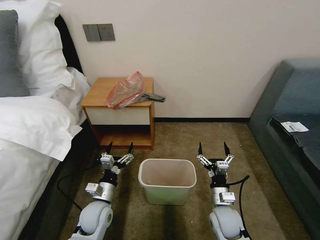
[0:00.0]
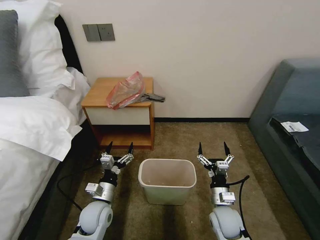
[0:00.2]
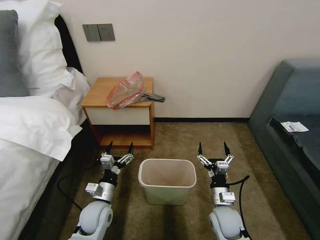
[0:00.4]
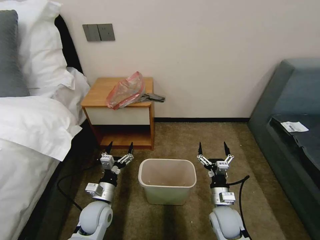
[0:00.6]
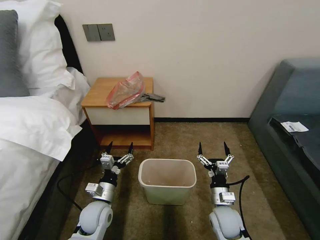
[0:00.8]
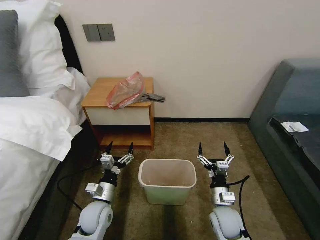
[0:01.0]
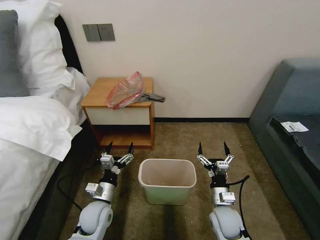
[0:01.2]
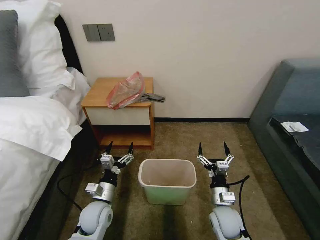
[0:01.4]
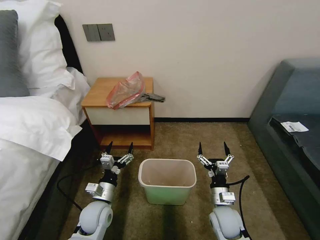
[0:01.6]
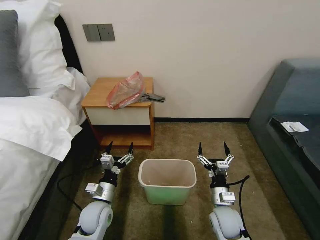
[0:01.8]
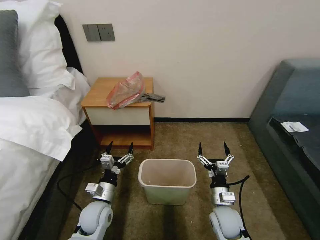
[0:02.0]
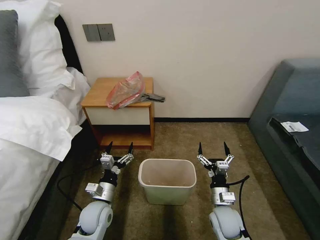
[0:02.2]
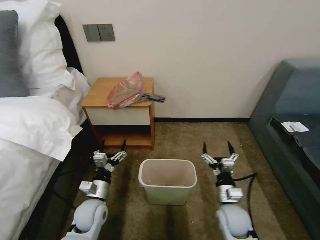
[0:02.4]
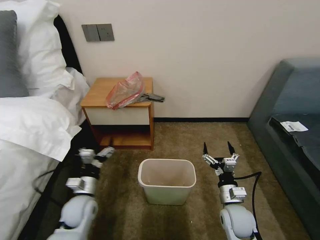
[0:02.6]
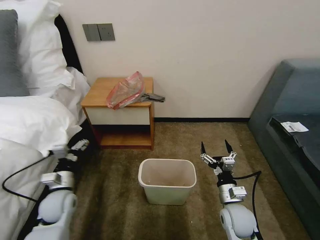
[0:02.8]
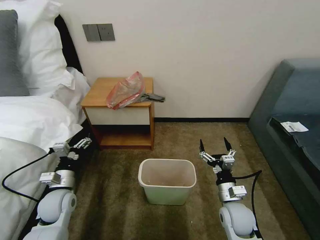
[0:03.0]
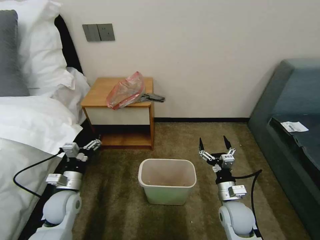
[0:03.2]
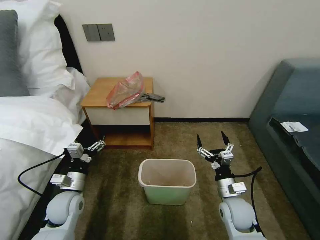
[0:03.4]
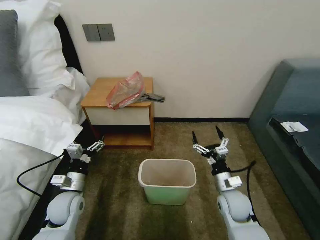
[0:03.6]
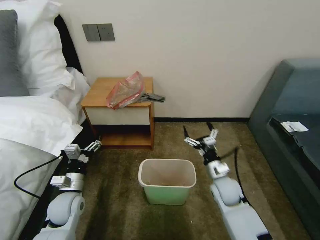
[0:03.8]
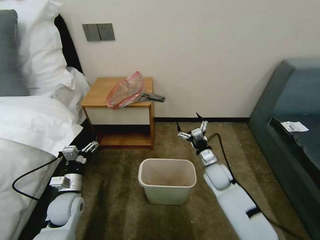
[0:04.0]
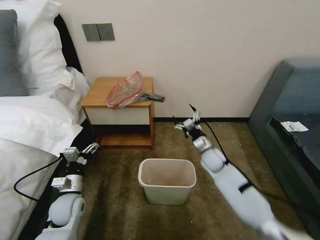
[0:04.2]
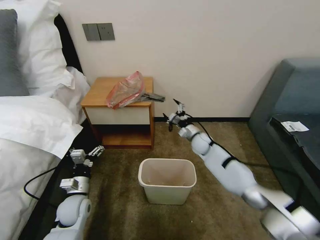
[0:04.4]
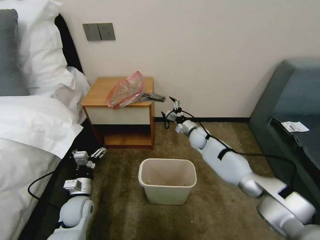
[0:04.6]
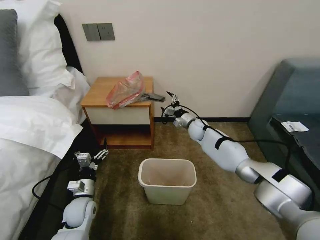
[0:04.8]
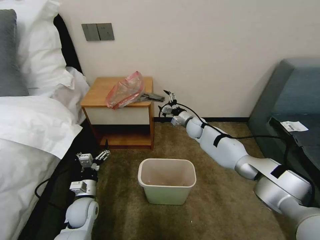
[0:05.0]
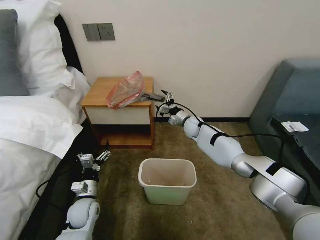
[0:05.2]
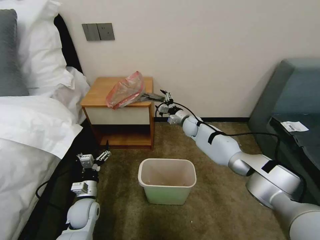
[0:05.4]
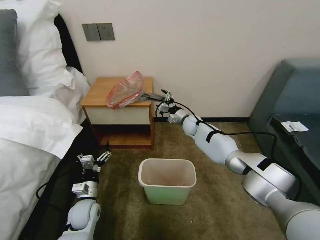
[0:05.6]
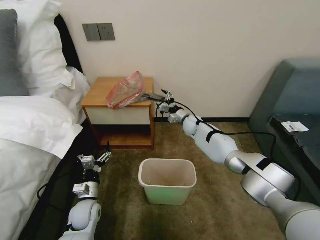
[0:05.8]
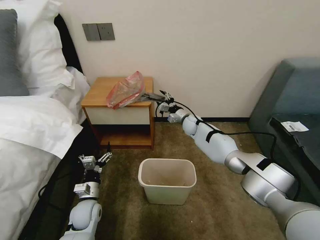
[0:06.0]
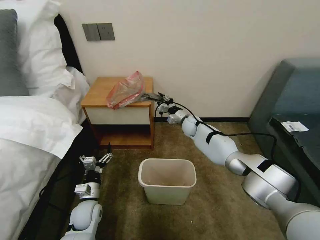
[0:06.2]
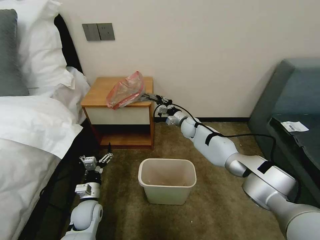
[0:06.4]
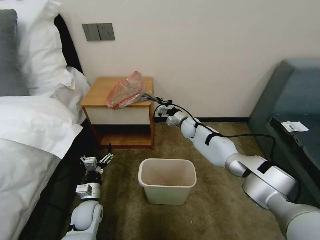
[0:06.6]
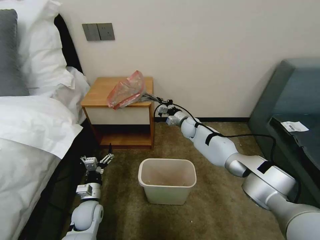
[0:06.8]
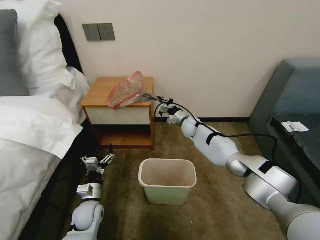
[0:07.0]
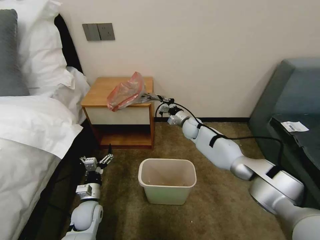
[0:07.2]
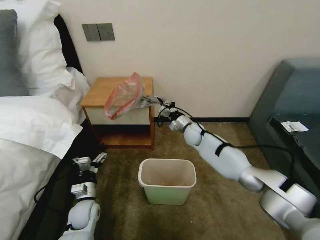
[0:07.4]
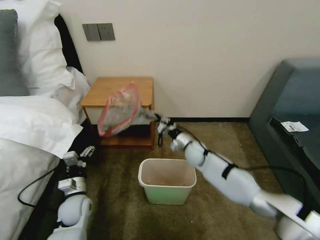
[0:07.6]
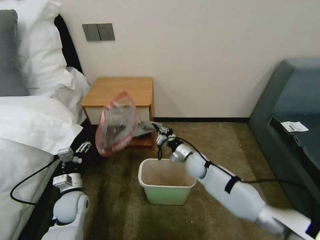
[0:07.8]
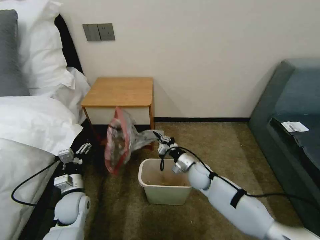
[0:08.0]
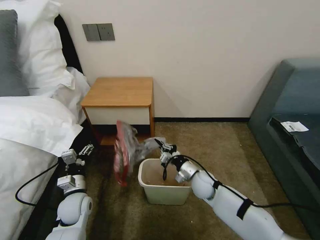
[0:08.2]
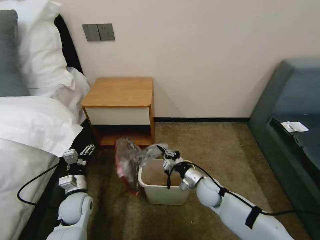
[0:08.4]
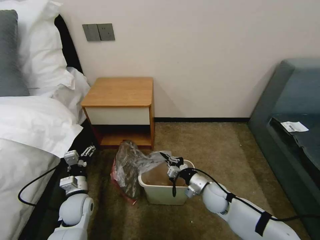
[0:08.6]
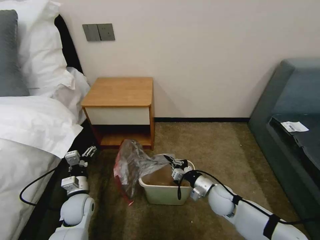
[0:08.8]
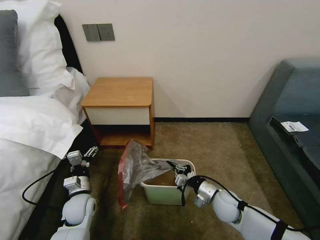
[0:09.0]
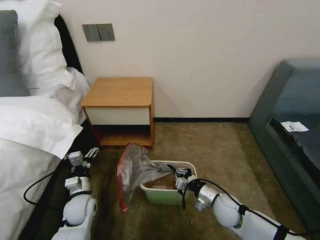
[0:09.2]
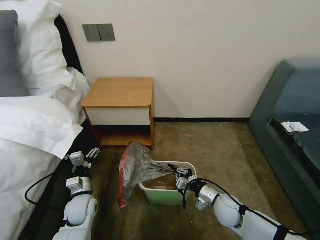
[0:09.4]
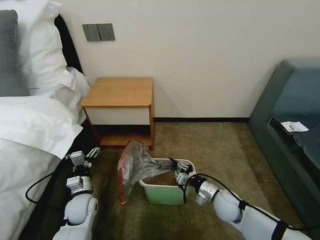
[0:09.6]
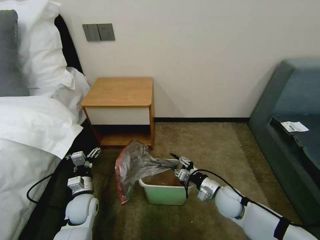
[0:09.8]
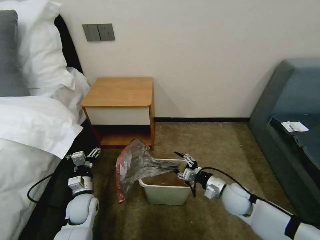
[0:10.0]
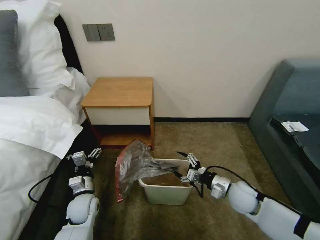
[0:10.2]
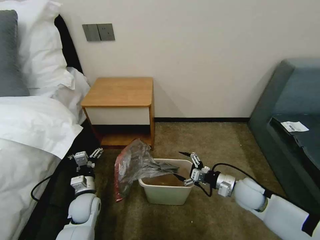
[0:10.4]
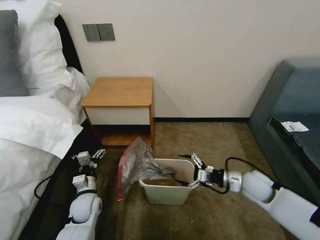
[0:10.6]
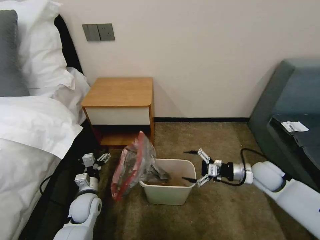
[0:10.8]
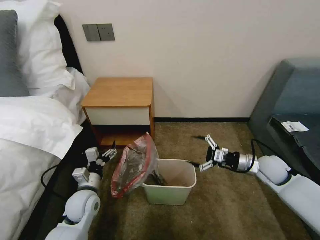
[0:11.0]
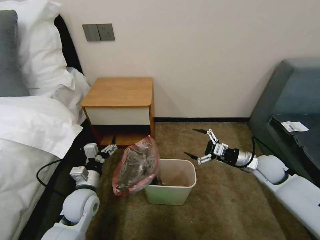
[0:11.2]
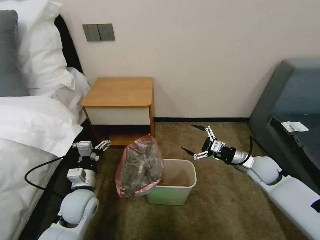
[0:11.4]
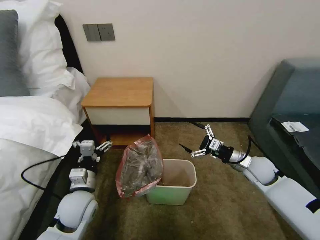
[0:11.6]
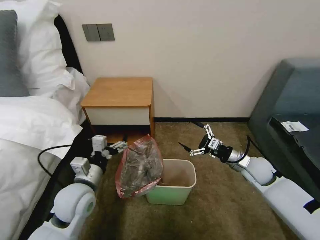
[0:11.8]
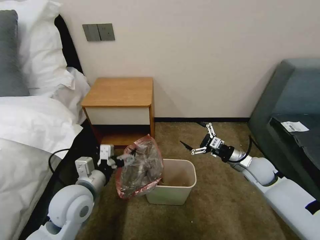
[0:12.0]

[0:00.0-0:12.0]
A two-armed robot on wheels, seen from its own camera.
Task of the whole recording: Pick up the garbage bag from the table and place it over the trash can.
0:01.6 to 0:03.0: The left gripper goes approximately 15 cm to the left and upward.
0:03.0 to 0:04.4: The right gripper heads forward, covering approximately 25 cm.
0:04.4 to 0:06.0: The right gripper is displaced forward and to the left by some 15 cm. The left gripper ends up approximately 5 cm from where it was.
0:06.0 to 0:07.6: The right gripper moves backward, about 15 cm, and closes.
0:07.6 to 0:09.0: The right gripper travels backward and to the right by roughly 20 cm.
0:09.0 to 0:10.4: The right gripper goes roughly 10 cm to the right and upward, and opens.
0:10.4 to 0:12.0: The right gripper heads forward, covering some 5 cm. The left gripper goes about 20 cm upward.

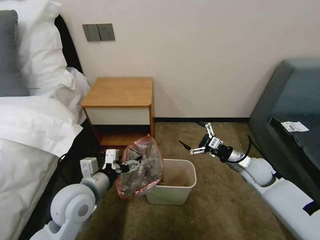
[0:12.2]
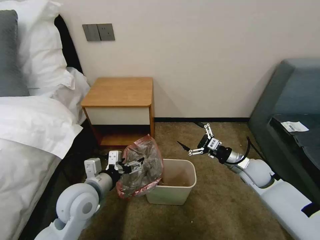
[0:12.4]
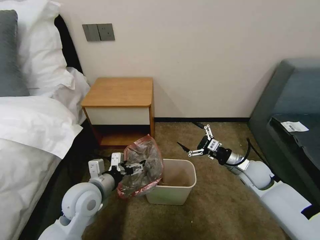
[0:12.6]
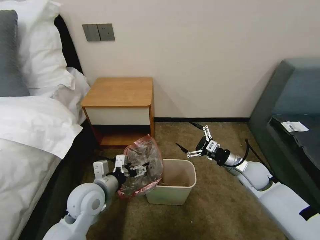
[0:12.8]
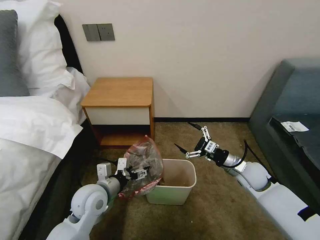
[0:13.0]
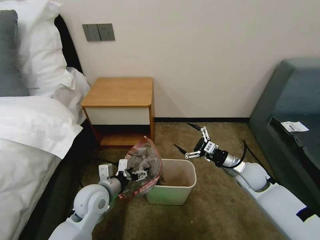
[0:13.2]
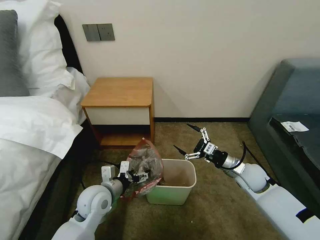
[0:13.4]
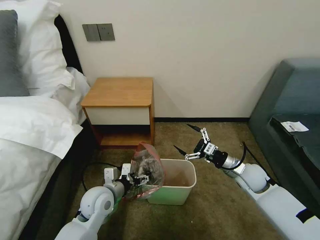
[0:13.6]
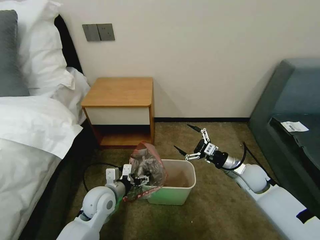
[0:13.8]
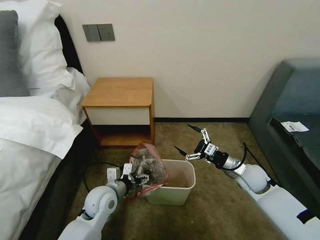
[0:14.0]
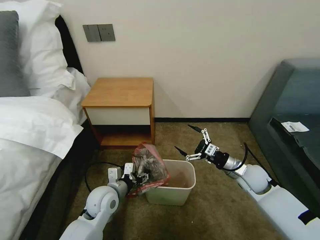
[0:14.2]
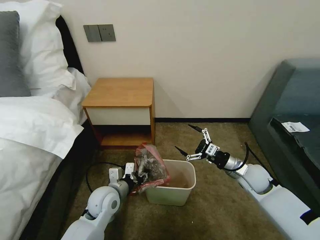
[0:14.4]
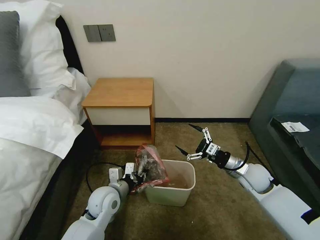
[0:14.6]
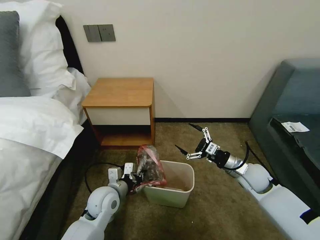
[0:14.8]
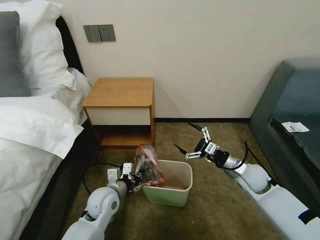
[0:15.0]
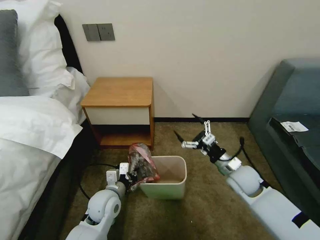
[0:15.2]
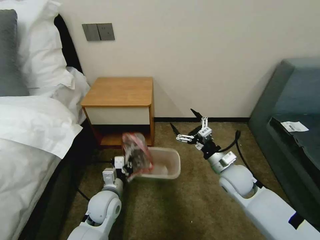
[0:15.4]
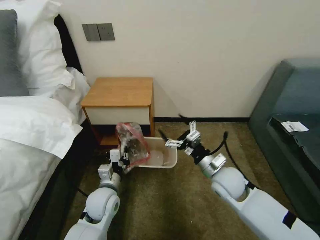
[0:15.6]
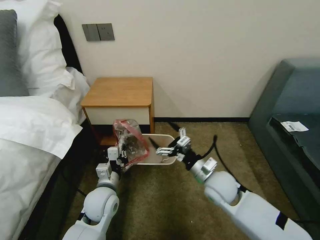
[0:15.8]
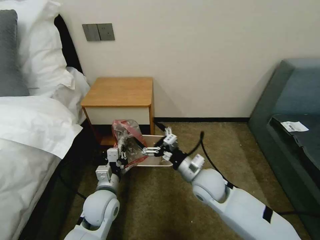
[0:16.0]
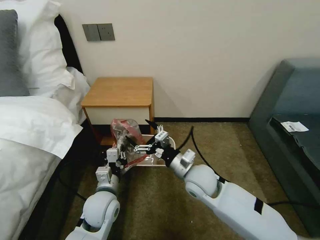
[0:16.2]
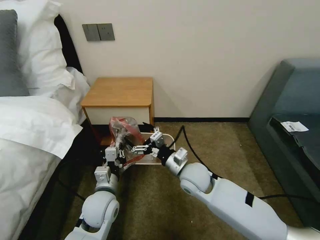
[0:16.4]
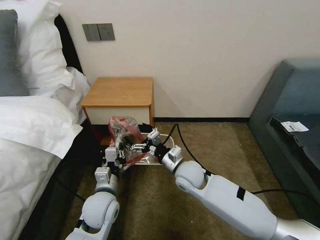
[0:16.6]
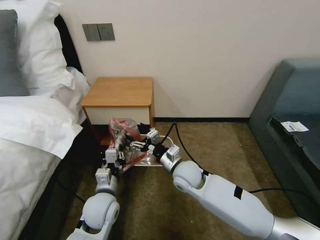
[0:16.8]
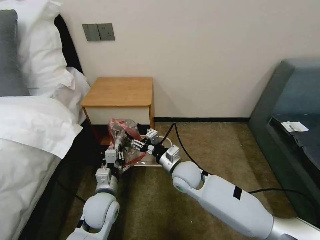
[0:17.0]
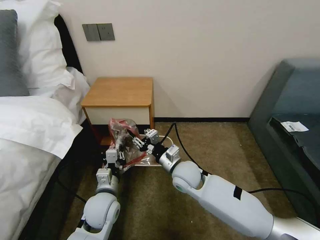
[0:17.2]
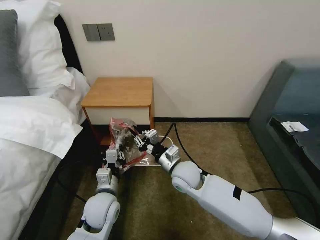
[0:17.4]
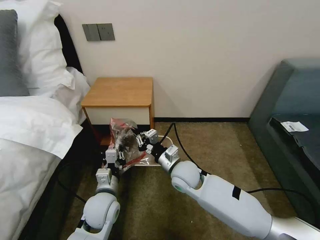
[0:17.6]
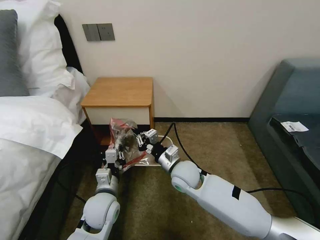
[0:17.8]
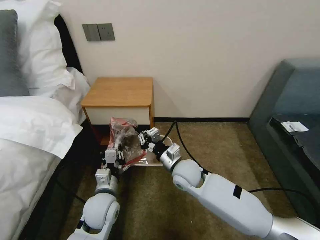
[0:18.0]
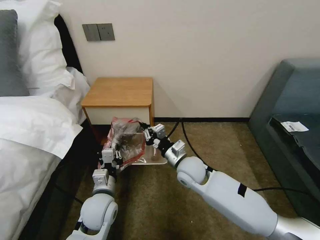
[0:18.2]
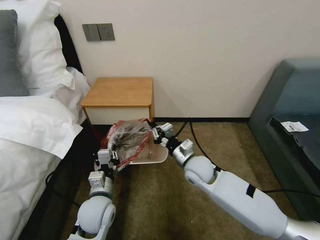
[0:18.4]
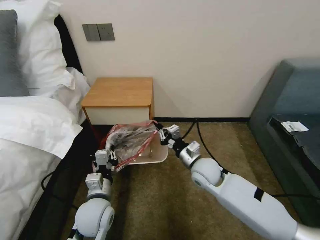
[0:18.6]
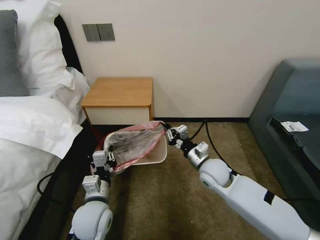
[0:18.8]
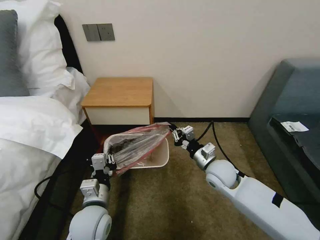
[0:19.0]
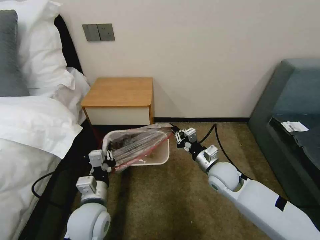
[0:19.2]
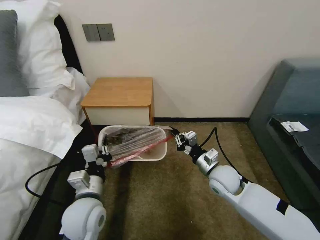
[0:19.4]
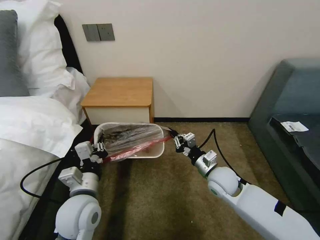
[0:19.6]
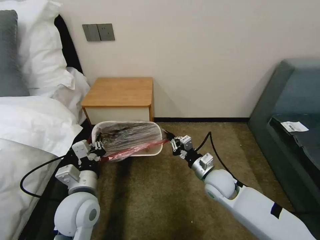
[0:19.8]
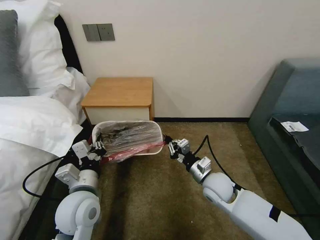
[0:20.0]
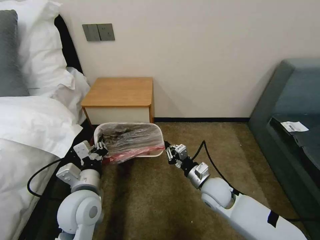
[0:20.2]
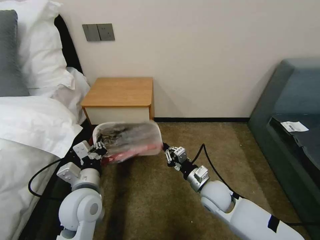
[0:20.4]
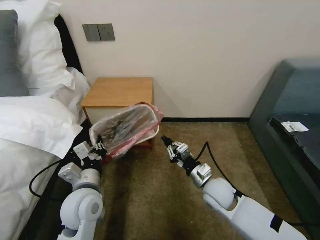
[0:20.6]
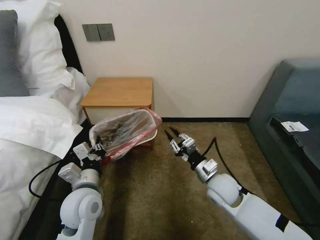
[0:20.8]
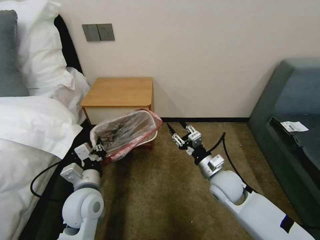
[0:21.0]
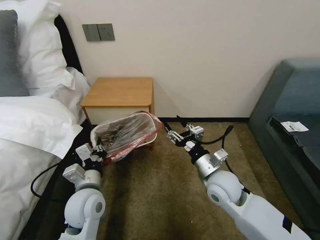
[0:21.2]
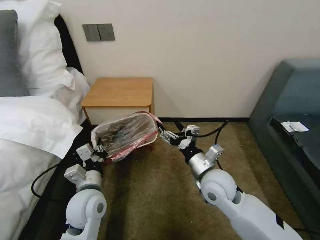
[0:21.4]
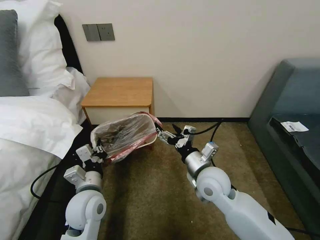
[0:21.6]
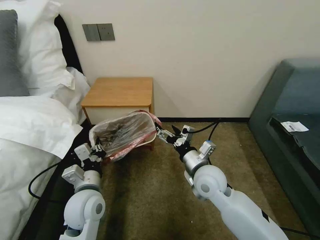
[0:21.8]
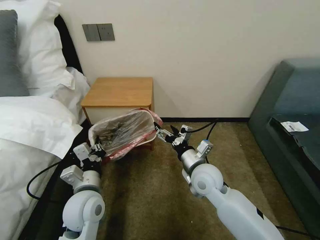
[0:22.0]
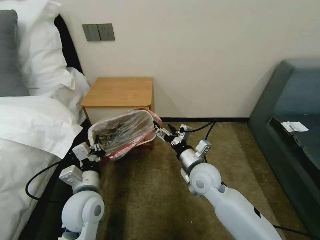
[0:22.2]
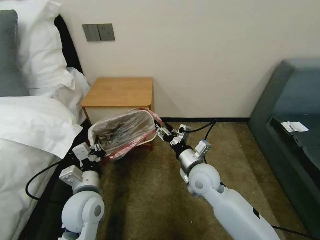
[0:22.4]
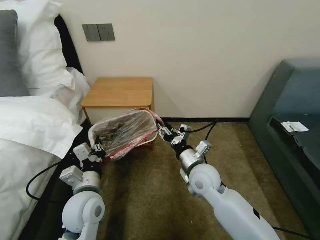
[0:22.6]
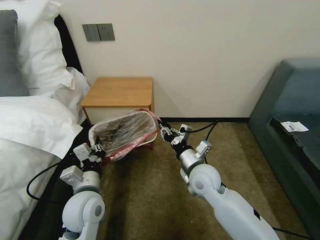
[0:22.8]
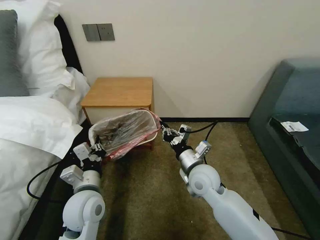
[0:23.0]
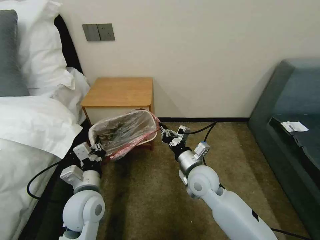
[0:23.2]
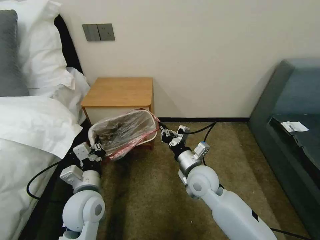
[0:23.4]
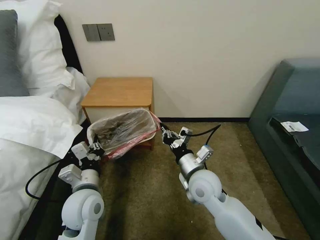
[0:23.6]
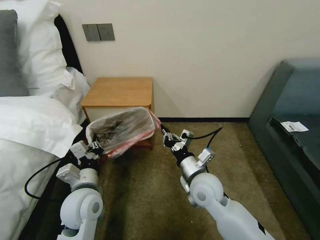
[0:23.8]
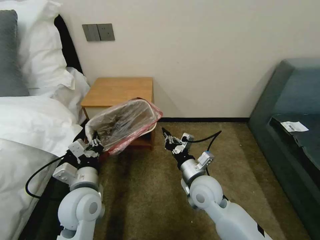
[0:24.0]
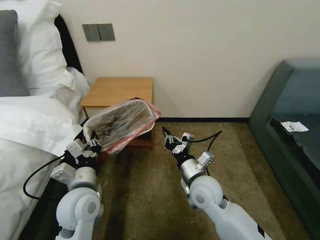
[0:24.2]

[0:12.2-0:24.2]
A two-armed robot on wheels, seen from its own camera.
Task of the whole recording: Pick up the garbage bag from the table and place it over the trash can.
0:12.2 to 0:13.8: The left gripper heads downward, covering roughly 10 cm.
0:13.8 to 0:15.2: The left gripper closes up.
0:15.2 to 0:16.6: The right gripper shifts some 20 cm to the left.
0:16.6 to 0:18.2: The right gripper closes its fingers.
0:18.2 to 0:19.8: The right gripper shifts some 10 cm to the right. The left gripper travels upward by approximately 10 cm.
0:19.8 to 0:21.2: The right gripper goes about 5 cm upward, and opens up.
0:21.2 to 0:22.6: The right gripper shifts by some 5 cm.
0:22.6 to 0:24.2: The right gripper closes up.
